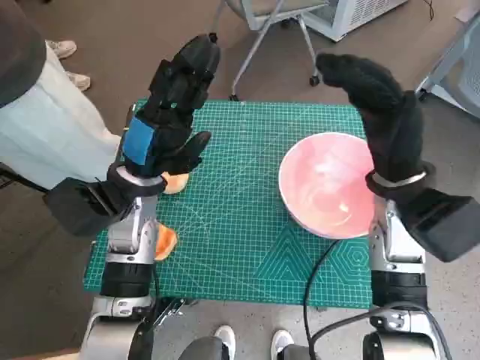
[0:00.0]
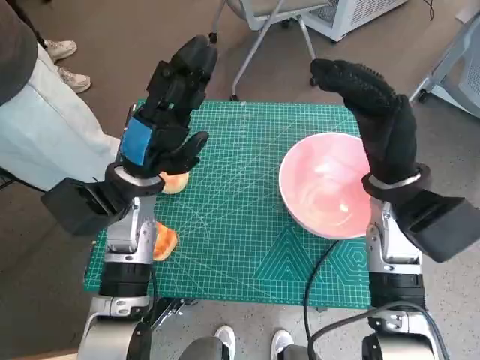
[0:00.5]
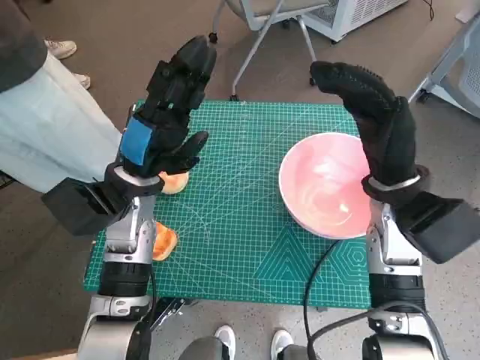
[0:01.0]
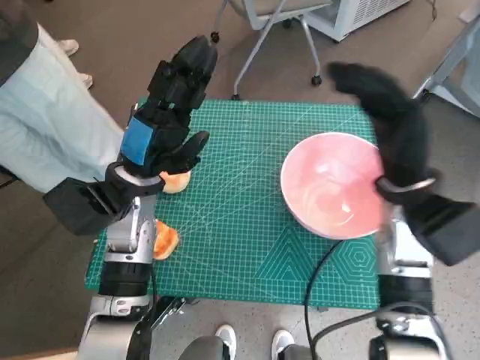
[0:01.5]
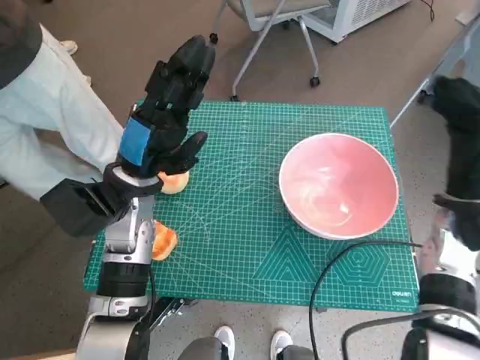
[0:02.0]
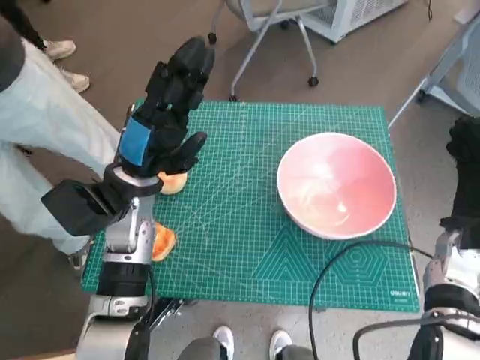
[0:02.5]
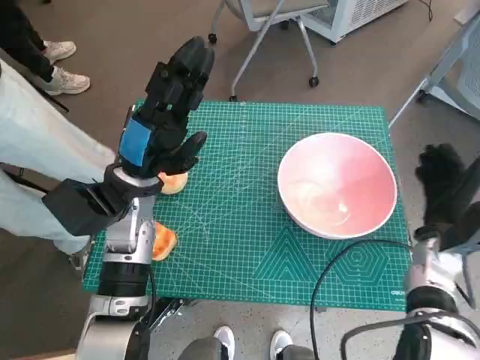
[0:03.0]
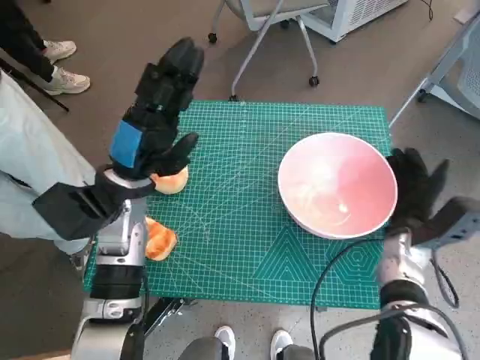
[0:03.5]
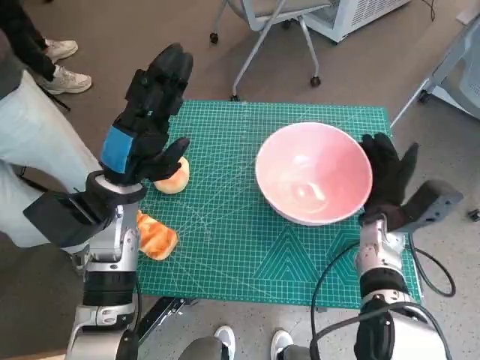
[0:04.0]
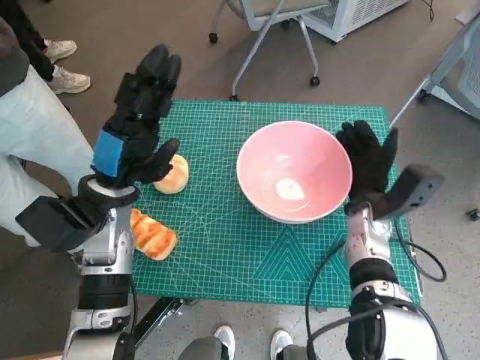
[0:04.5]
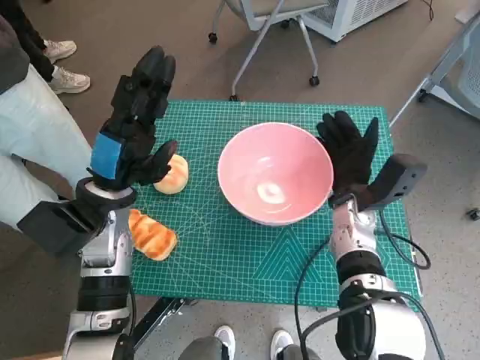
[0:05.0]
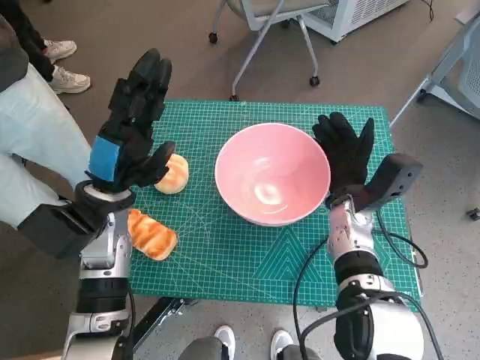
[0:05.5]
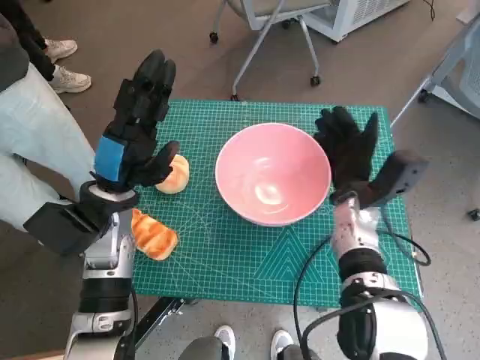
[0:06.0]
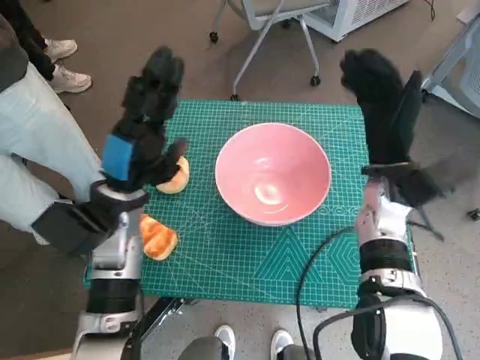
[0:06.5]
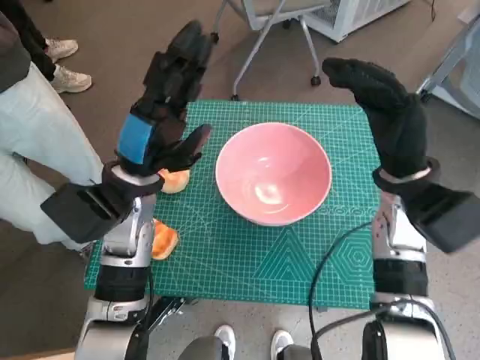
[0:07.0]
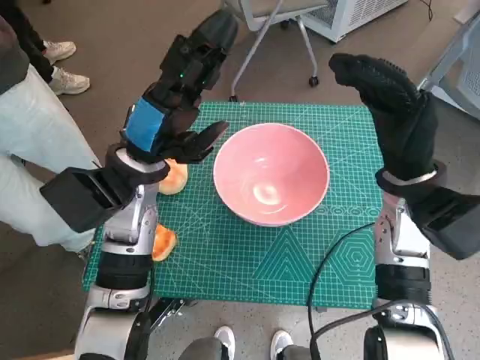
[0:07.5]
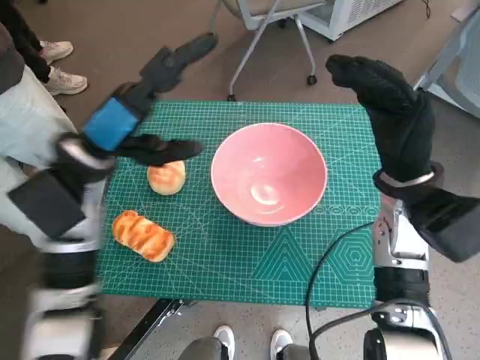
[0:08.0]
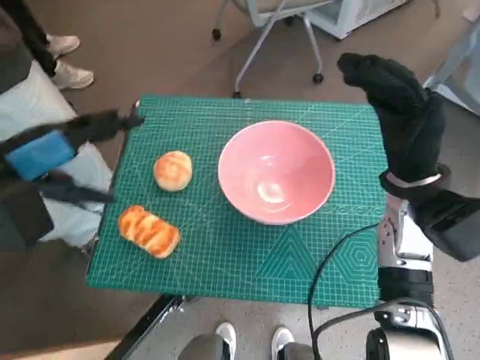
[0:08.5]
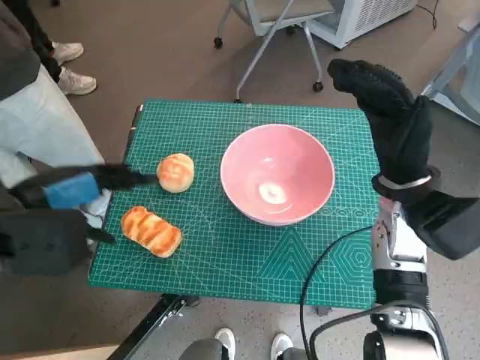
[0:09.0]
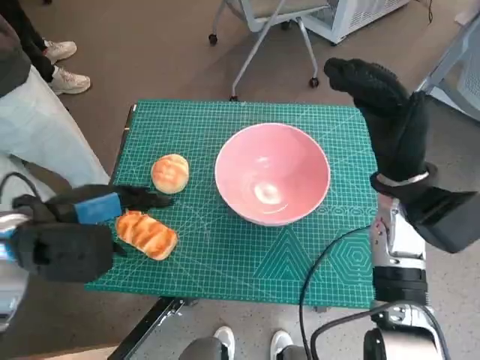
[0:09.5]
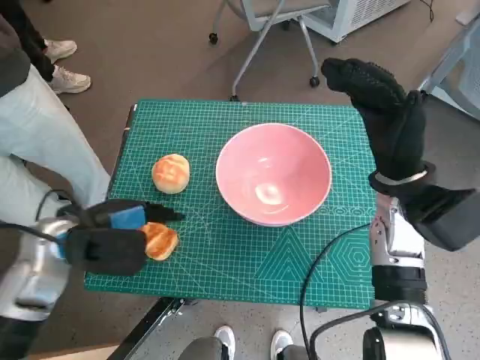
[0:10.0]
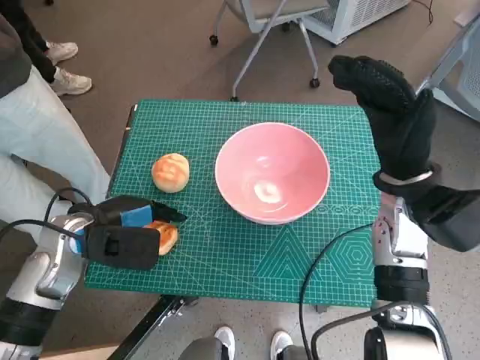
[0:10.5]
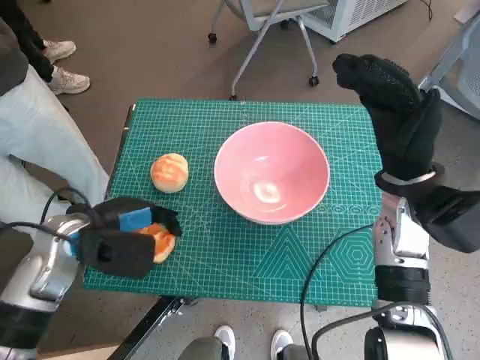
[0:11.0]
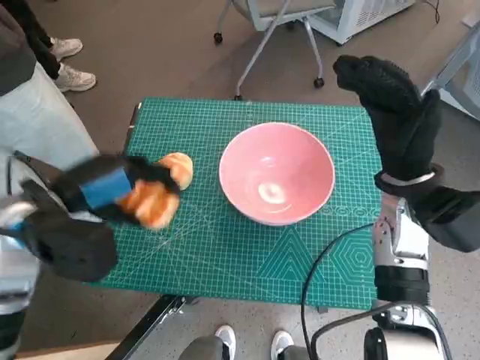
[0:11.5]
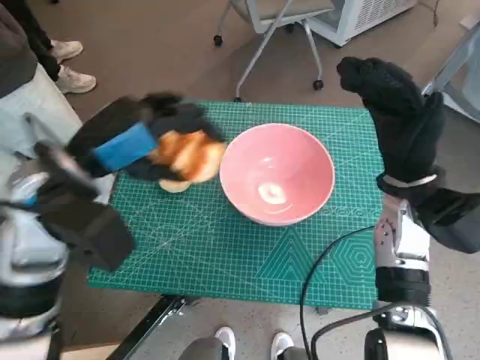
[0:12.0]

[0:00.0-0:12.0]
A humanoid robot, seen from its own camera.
Task of the whole recording: Push the bowl into the center of the table and put the bread into the bowl.
Step, 0:00.0 to 0:06.0: Move the pink bowl to the center of table with right hand.
Step, 0:06.5 to 0:10.5: Grasp the long bread with left hand.
0:02.0 to 0:04.0: The right hand heads downward and to the left, covering some 10 cm.
0:04.0 to 0:06.0: The right hand ends up approximately 5 cm from where it was.
0:06.0 to 0:08.0: Both hands travel together upward, roughly 10 cm.
0:08.0 to 0:10.0: The left hand is displaced downward and backward by about 10 cm.
0:10.0 to 0:12.0: The left hand moves upward, roughly 10 cm.

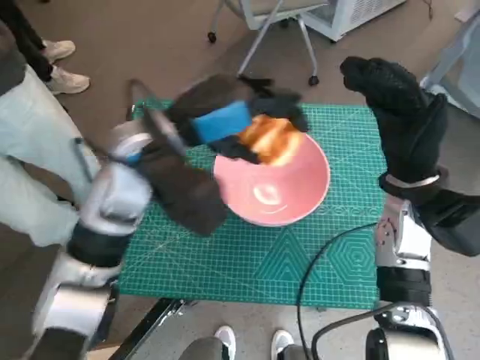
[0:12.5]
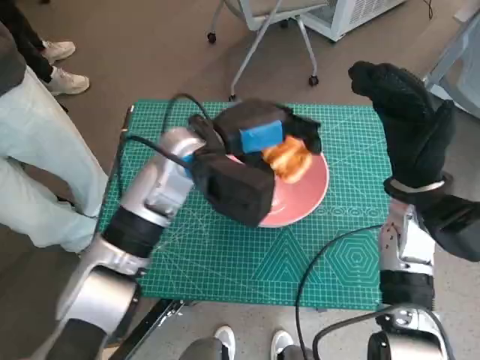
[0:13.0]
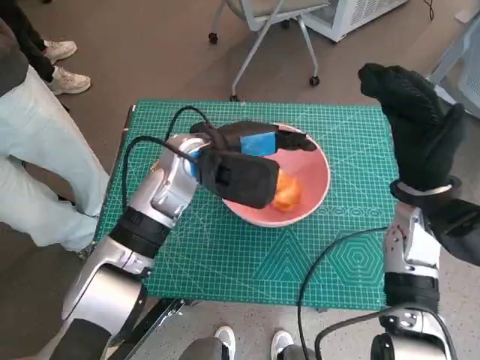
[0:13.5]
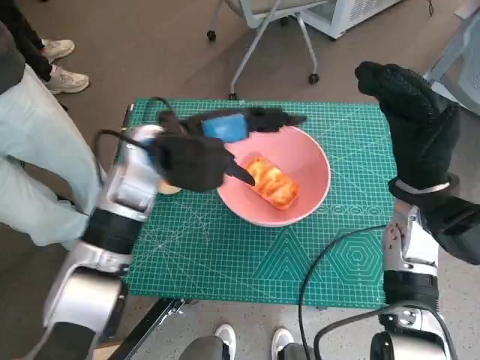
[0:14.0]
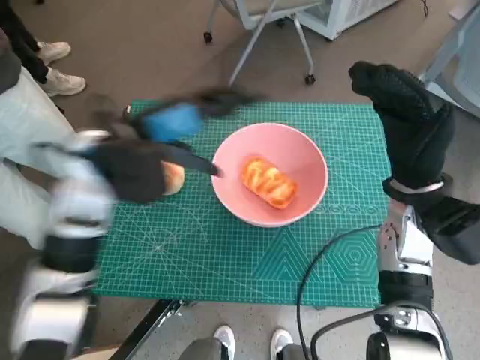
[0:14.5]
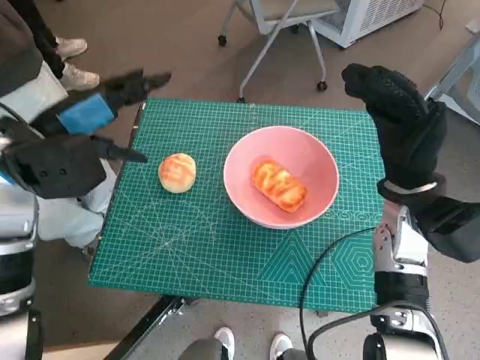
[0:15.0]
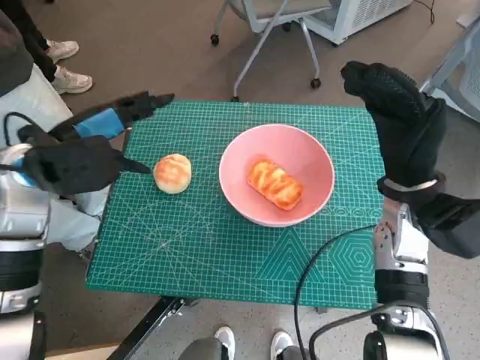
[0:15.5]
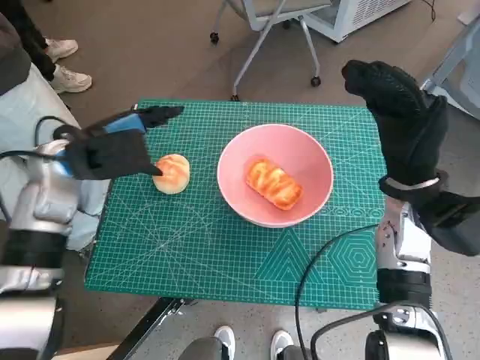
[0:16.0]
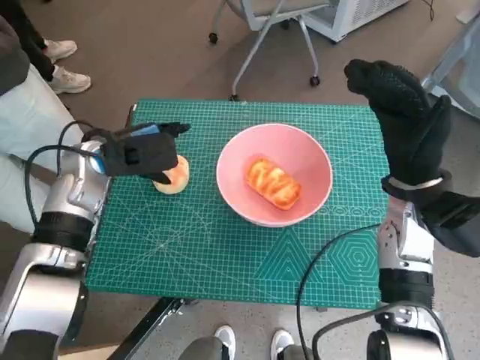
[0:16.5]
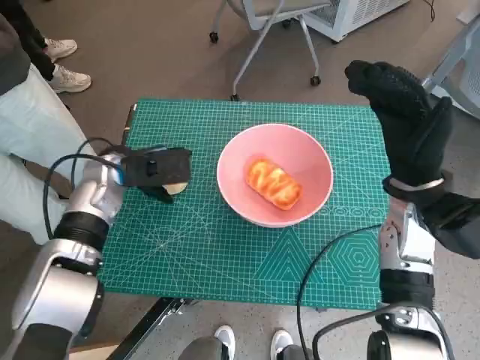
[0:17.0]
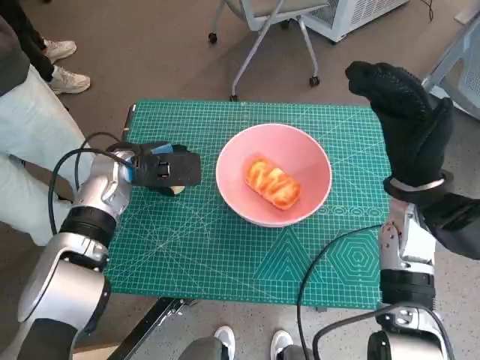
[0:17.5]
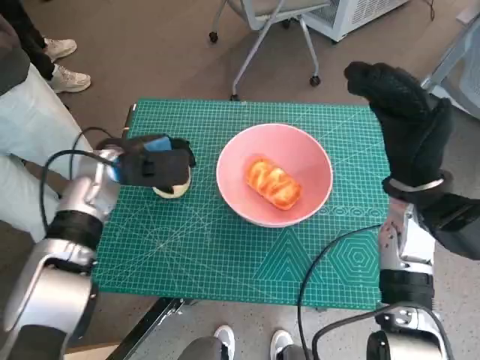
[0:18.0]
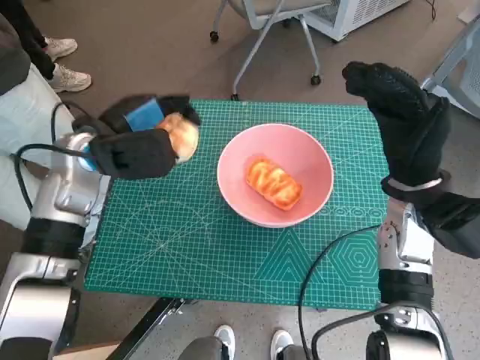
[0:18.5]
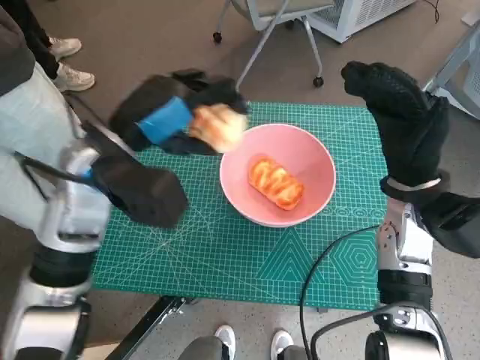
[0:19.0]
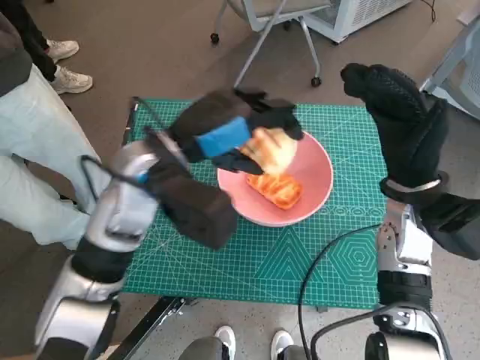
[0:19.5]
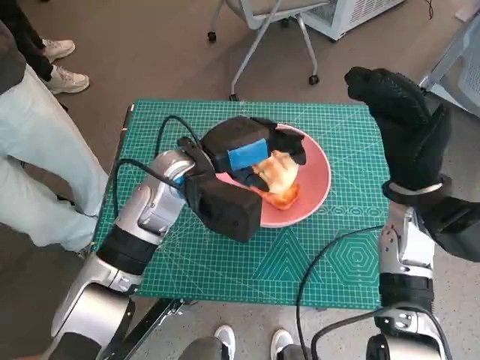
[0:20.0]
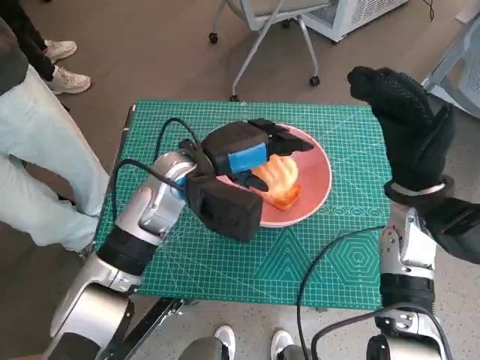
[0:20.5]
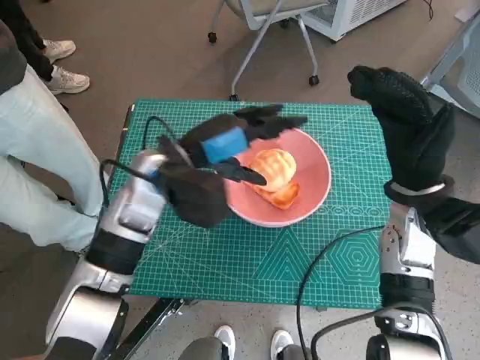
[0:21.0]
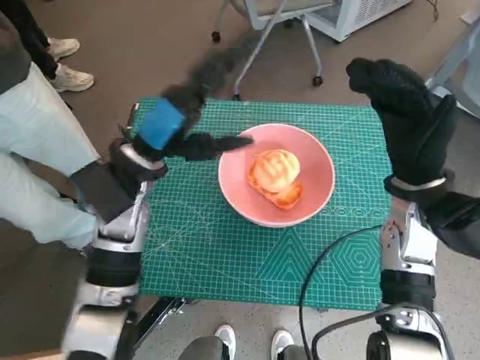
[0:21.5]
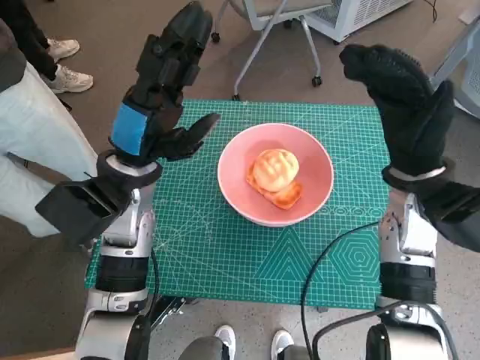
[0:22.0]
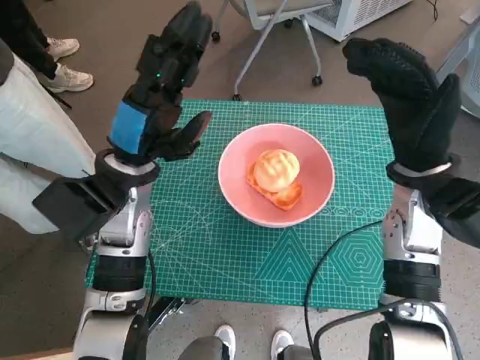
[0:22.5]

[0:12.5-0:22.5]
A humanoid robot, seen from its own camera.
Task of the whole recording: Push the bowl into the center of the table and put the bread into the bowl.
Step, 0:14.0 to 0:17.5: Grasp the round bread with left hand.
Step, 0:18.0 to 0:21.0: Place the round bread in pink bowl with left hand.
0:14.5 to 0:16.5: The left hand heads downward and to the left, covering roughly 10 cm.
0:16.5 to 0:18.5: The hands move only a little.
0:18.5 to 0:20.5: The left hand shifts some 10 cm to the right.
0:20.5 to 0:22.5: The left hand travels to the left by approximately 5 cm.

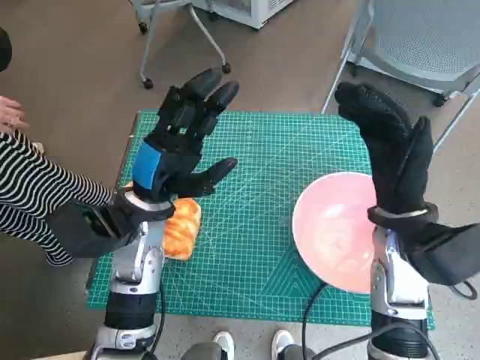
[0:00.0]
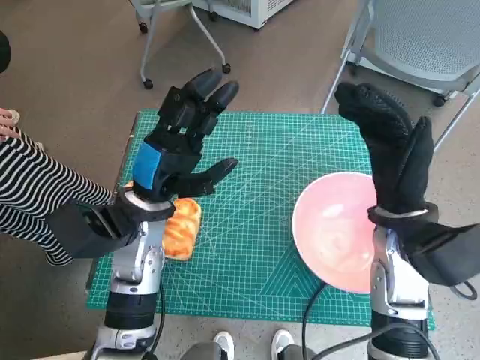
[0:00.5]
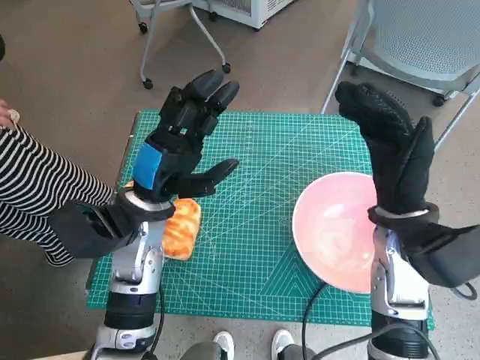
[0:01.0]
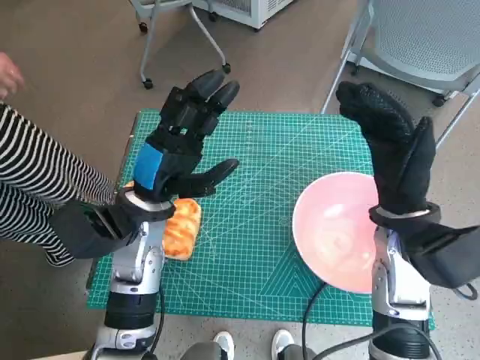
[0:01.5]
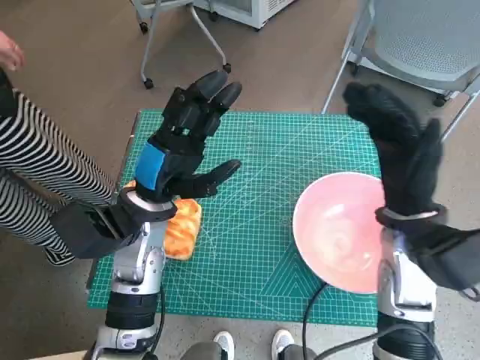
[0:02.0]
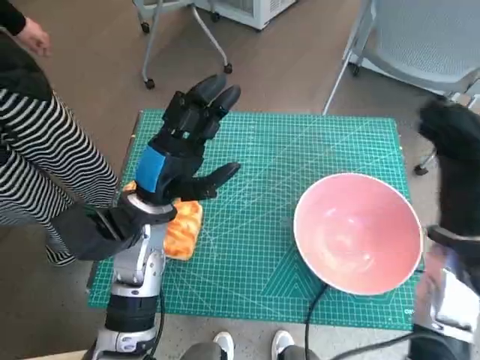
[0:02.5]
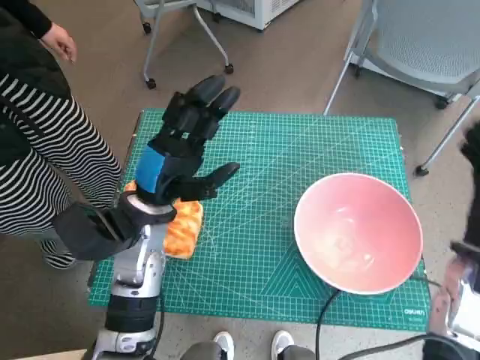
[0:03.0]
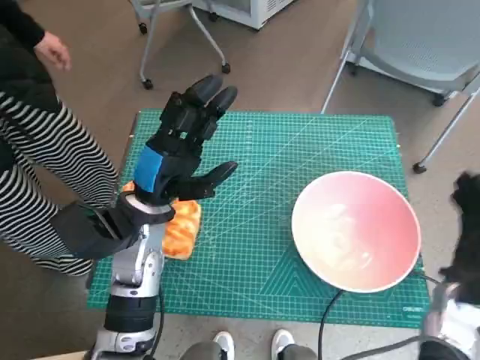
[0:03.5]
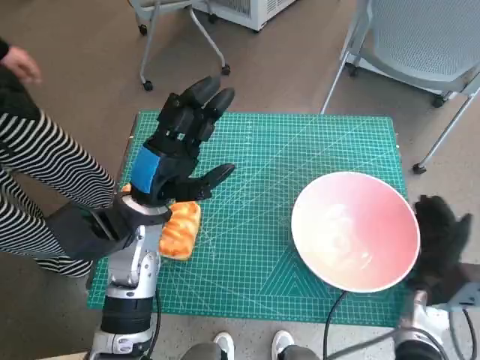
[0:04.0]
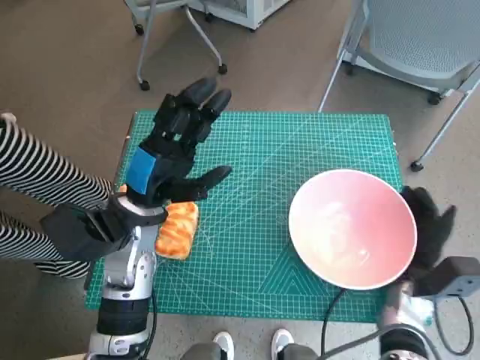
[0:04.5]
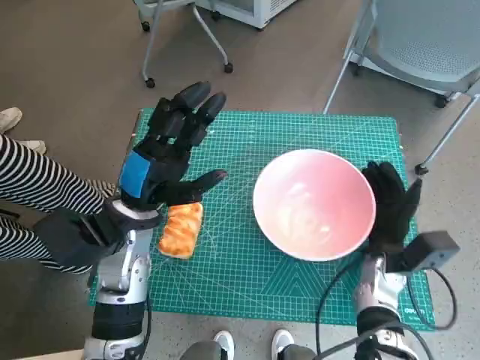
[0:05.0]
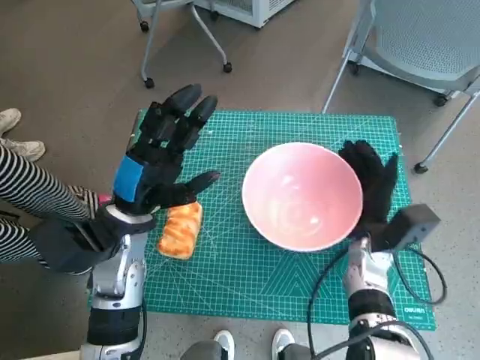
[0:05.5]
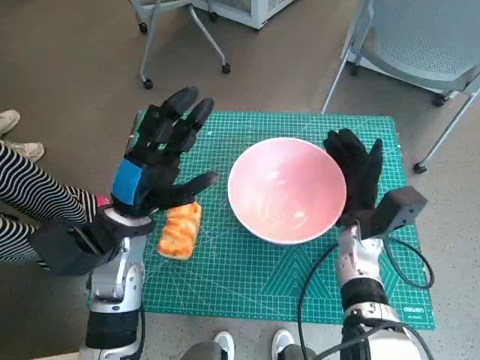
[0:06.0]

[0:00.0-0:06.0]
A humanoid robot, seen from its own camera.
Task of the whole recording: Push the bowl into the center of the table and put the bread into the bowl.
0:02.0 to 0:04.0: The right hand heads downward and to the right, covering approximately 20 cm.
0:04.0 to 0:06.0: The right hand is displaced to the left and forward by roughly 15 cm.
